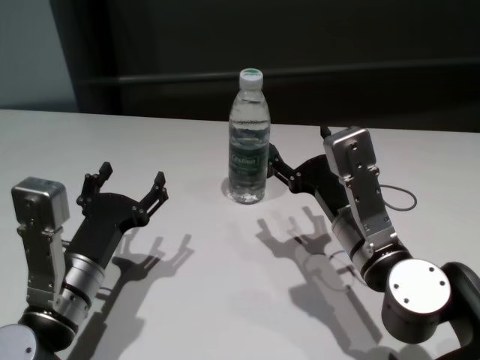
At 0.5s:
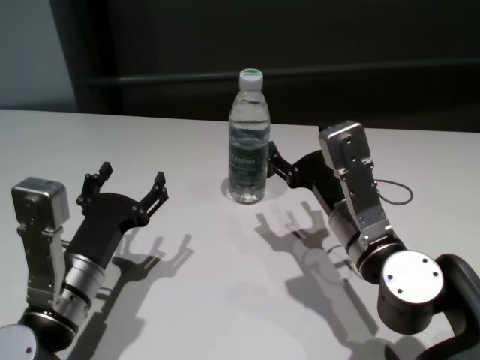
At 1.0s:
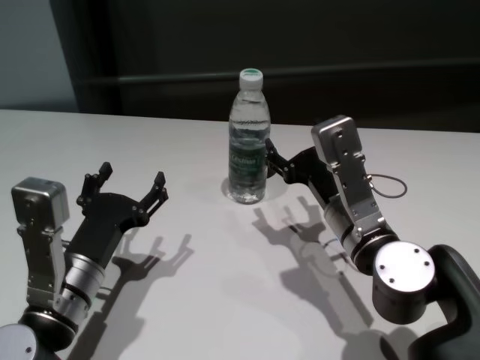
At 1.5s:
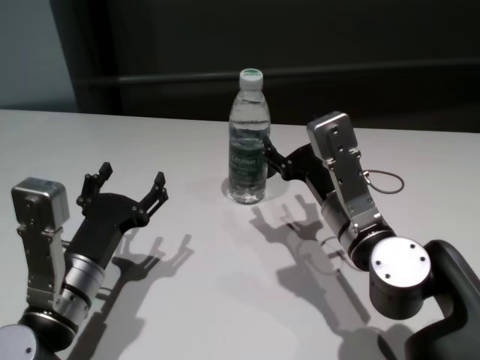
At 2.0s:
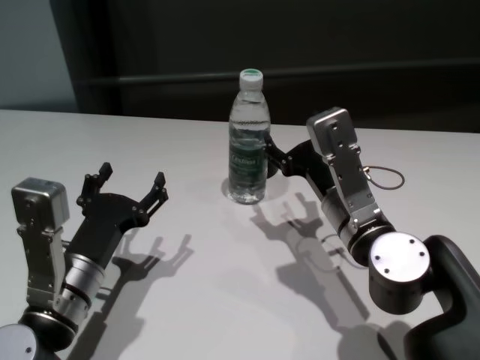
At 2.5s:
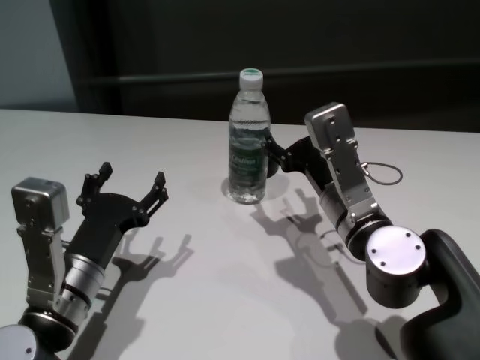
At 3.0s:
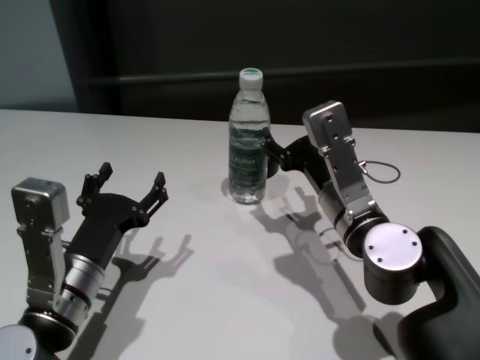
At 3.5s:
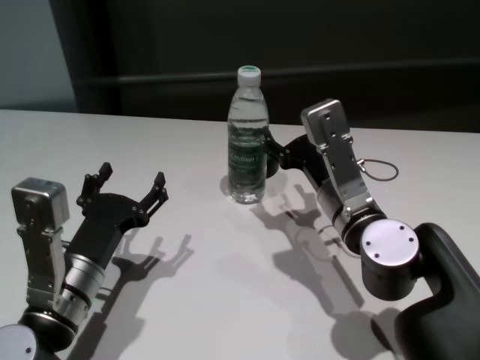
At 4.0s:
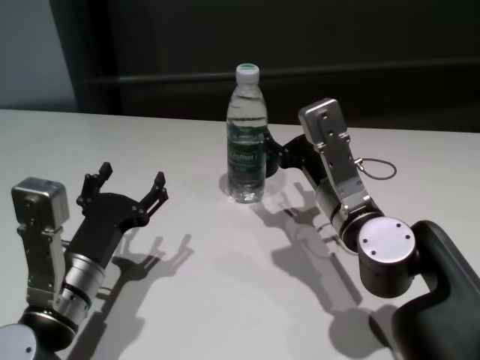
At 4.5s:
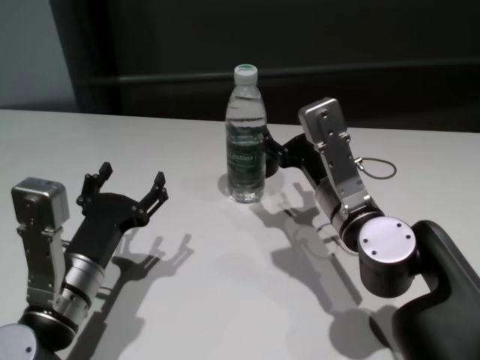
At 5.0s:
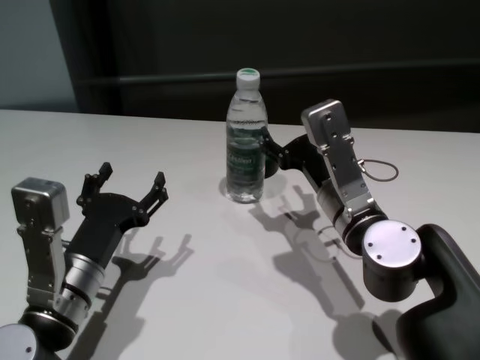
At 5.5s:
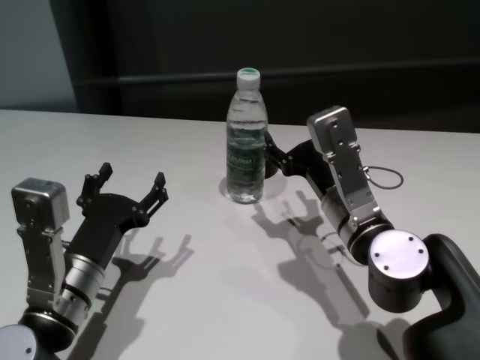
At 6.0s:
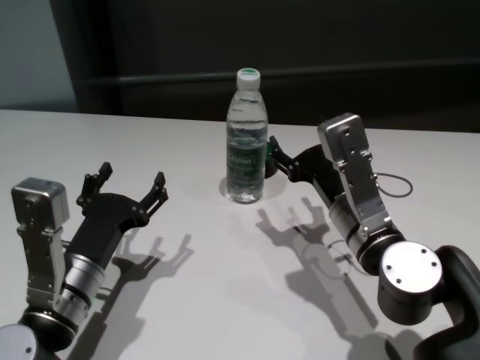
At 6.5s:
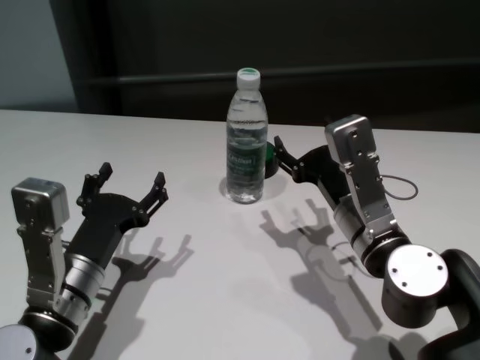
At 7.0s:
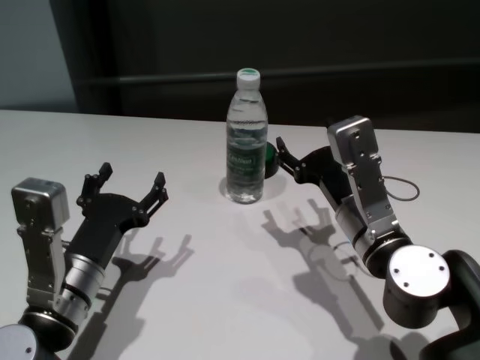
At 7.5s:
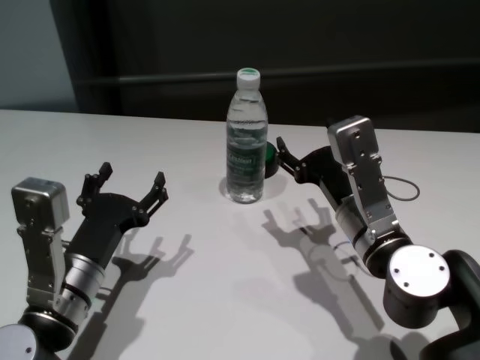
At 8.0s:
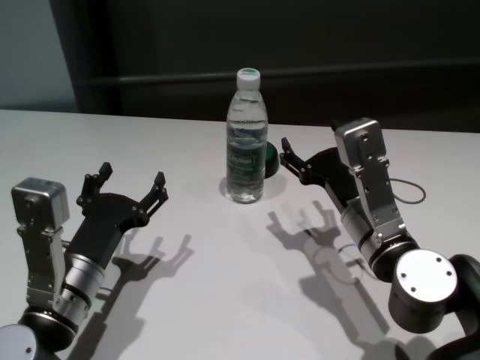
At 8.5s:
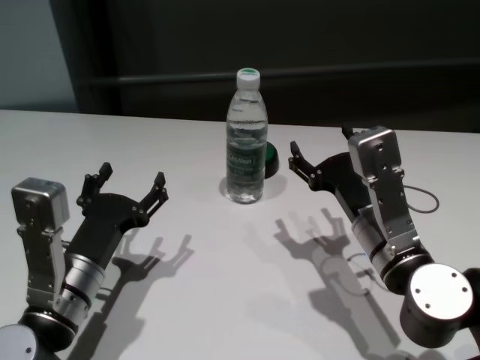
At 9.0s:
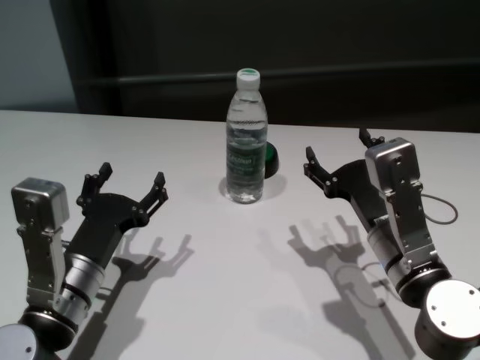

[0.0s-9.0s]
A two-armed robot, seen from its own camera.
Task of the whole recording: return to a safe position after touching an obstacle with your arm on the white table.
Step, 0.0s to 5.5s: Touch the bottle with right gripper.
